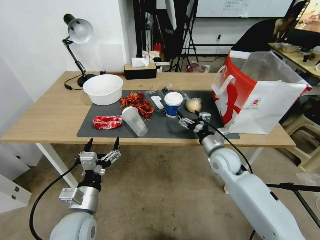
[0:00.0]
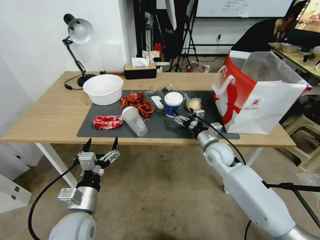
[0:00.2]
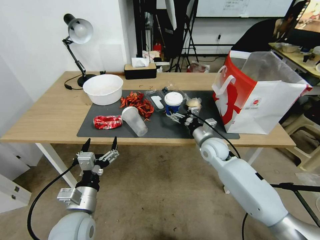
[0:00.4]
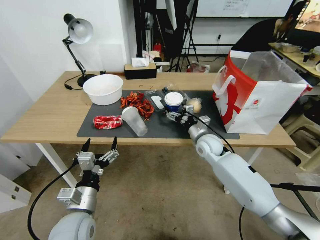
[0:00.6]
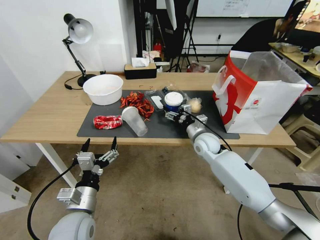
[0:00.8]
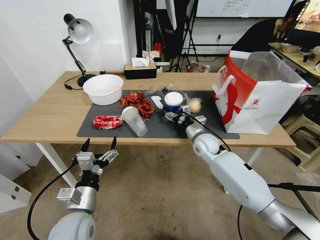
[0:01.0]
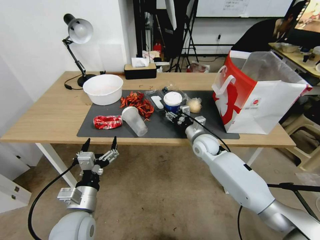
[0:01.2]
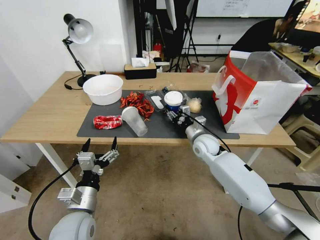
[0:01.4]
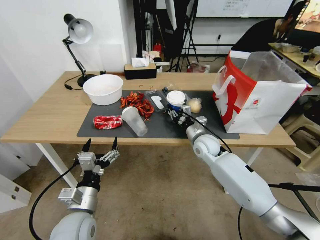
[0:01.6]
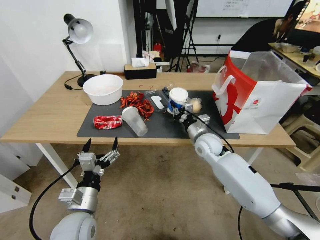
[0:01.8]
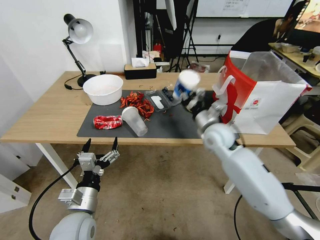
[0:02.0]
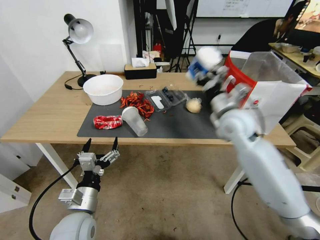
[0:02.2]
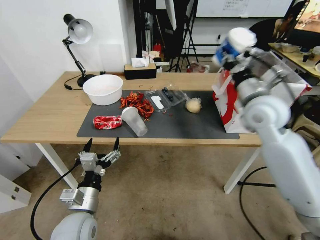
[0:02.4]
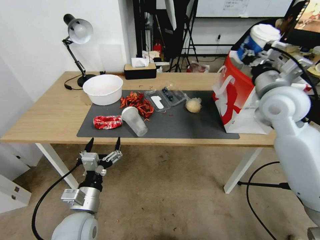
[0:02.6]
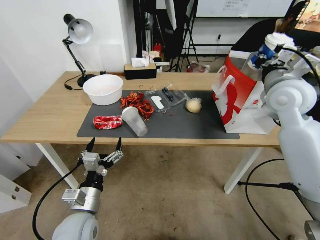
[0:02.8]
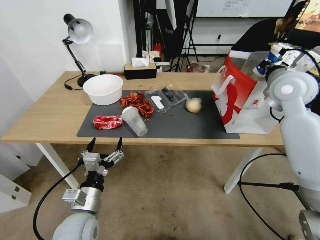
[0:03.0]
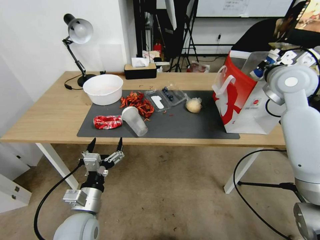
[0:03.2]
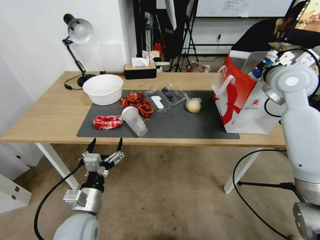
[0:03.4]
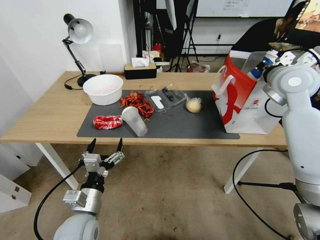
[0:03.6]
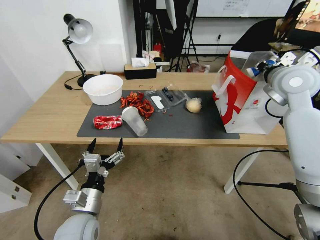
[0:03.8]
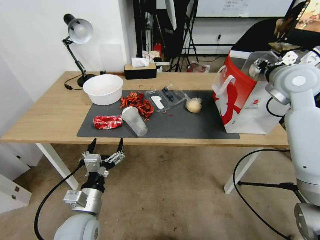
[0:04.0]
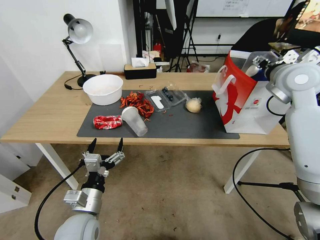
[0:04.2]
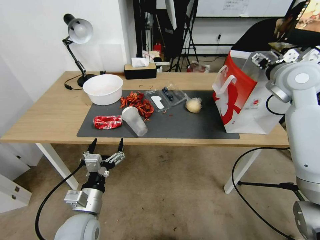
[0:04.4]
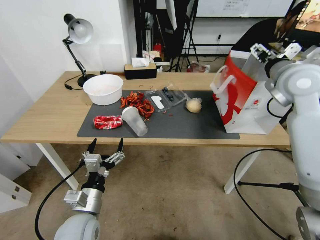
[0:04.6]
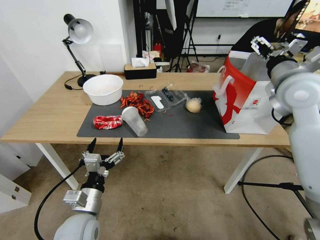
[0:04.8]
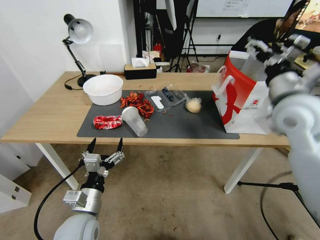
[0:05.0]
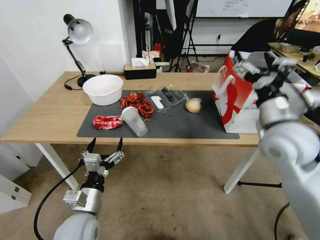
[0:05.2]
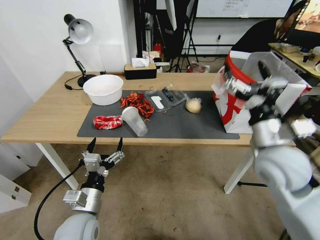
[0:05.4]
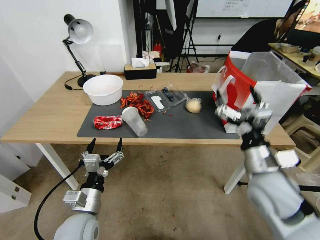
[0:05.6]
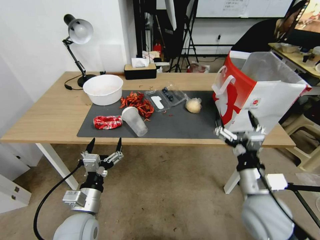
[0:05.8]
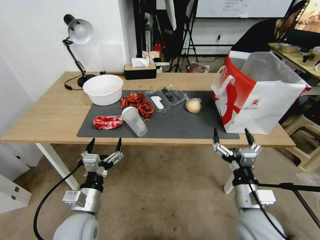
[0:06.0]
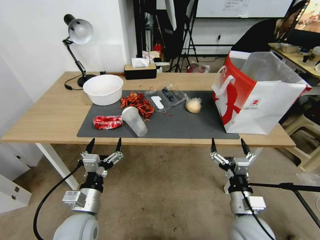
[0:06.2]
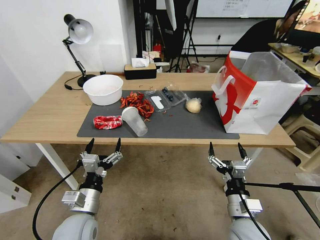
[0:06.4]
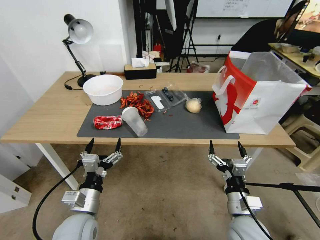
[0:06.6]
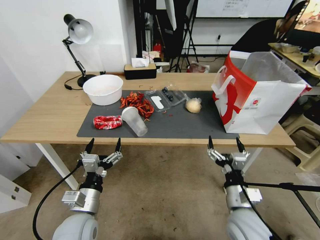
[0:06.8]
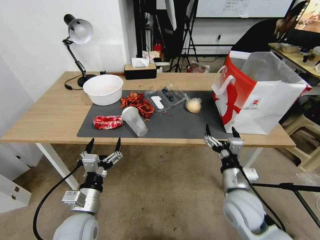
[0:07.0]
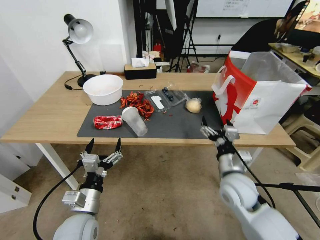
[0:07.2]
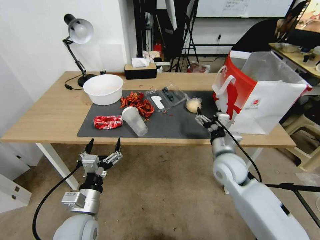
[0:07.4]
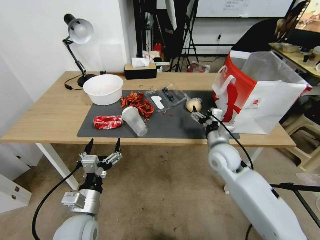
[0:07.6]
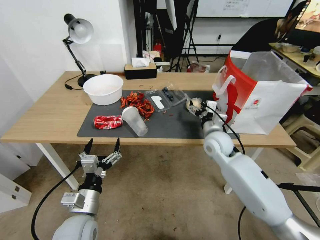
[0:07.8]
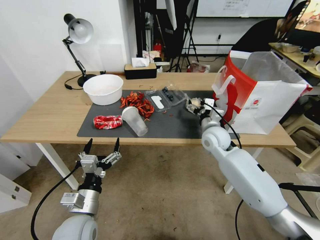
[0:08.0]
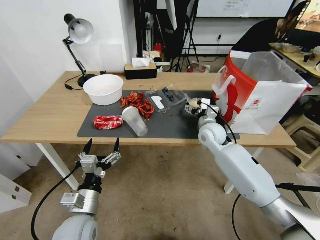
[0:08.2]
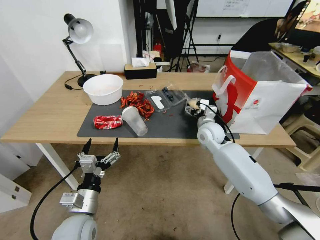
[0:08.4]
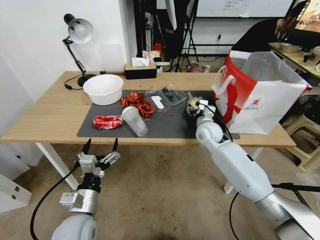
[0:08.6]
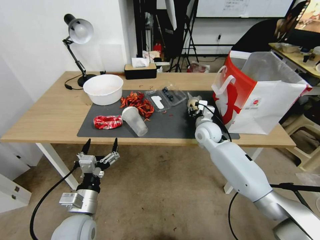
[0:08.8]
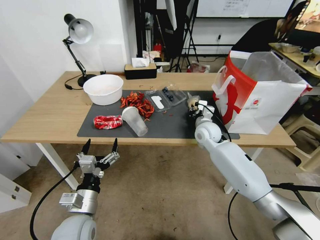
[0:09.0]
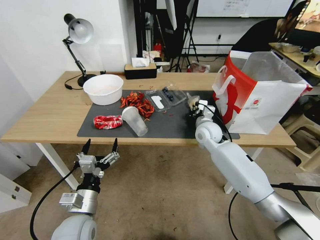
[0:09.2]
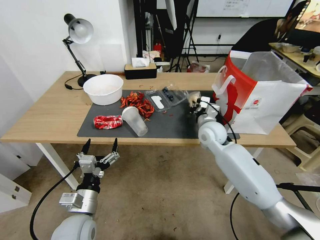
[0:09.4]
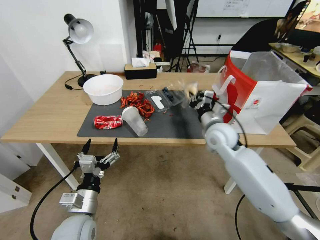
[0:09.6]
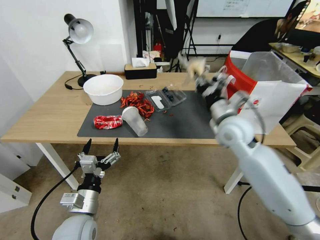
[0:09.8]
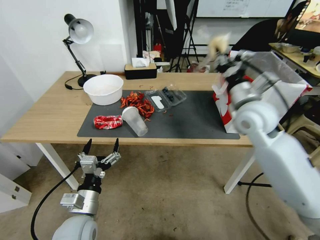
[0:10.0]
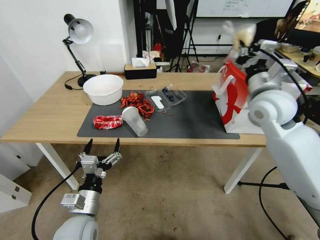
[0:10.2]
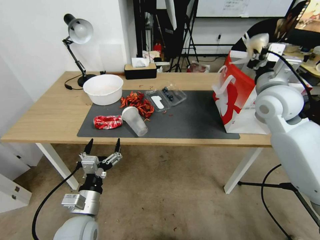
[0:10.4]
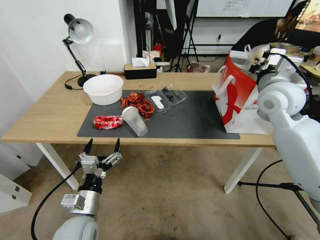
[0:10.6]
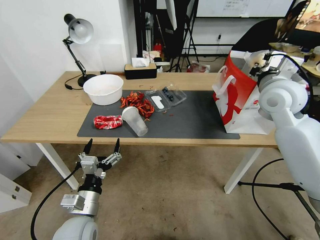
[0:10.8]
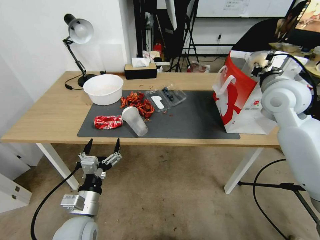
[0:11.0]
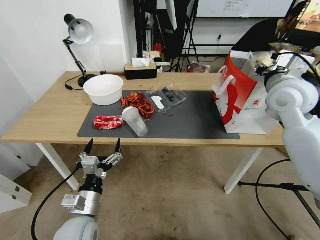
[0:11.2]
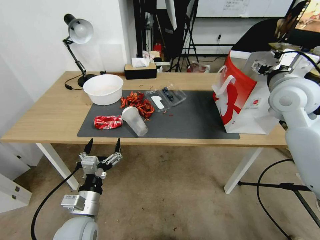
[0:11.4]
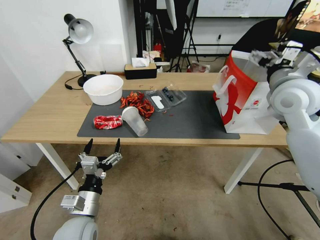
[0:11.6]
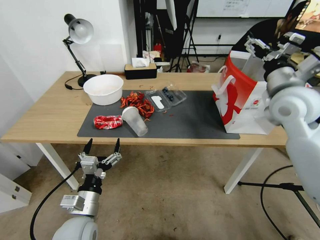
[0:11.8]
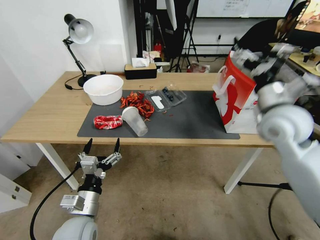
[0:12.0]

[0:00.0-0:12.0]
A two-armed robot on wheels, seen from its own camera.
0:00.0 to 0:01.6: The right gripper is displaced forward by some 5 cm, and closes its fingers.
0:01.6 to 0:03.0: The right gripper is displaced upward and to the right by about 30 cm.
0:03.0 to 0:04.4: The right gripper opens.
0:04.4 to 0:06.0: The right gripper moves backward, downward and to the left, some 40 cm.
0:06.0 to 0:07.6: The right gripper moves forward, about 20 cm.
0:07.6 to 0:09.0: The right gripper heads forward, covering roughly 10 cm, and closes up.
0:09.0 to 0:10.4: The right gripper goes roughly 25 cm upward and to the right.
0:10.4 to 0:12.0: The right gripper heads backward, covering approximately 5 cm, and opens.

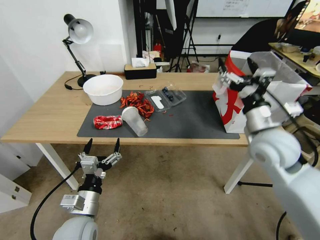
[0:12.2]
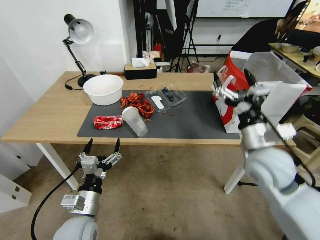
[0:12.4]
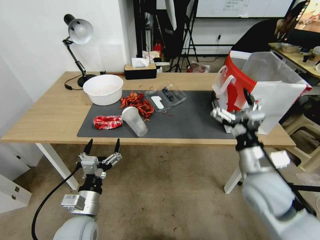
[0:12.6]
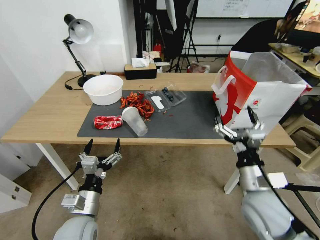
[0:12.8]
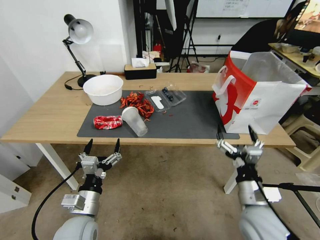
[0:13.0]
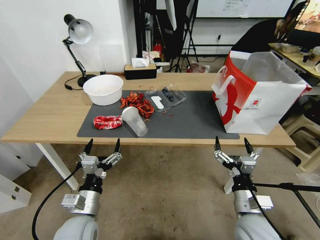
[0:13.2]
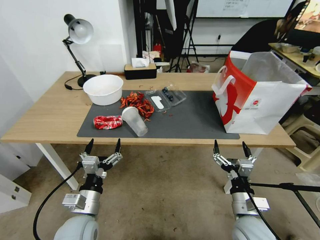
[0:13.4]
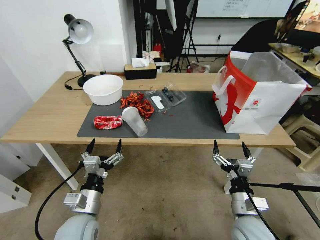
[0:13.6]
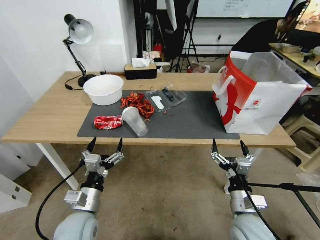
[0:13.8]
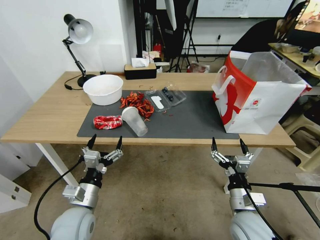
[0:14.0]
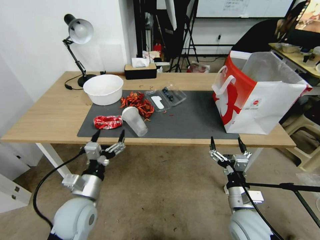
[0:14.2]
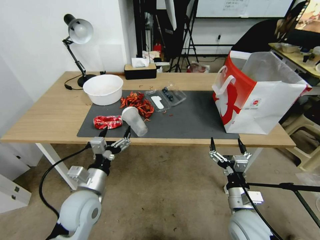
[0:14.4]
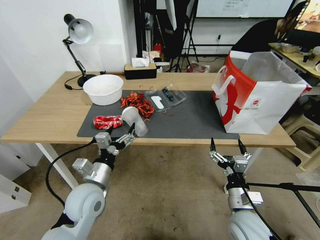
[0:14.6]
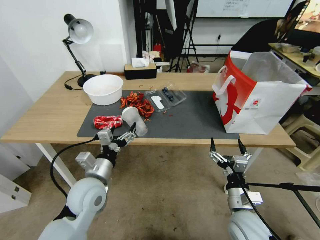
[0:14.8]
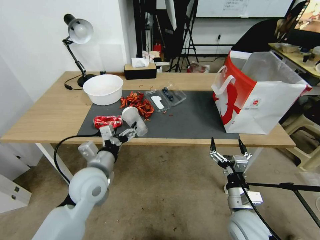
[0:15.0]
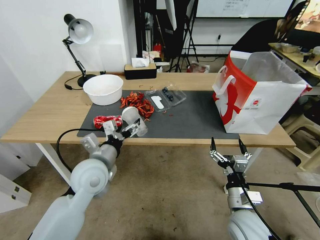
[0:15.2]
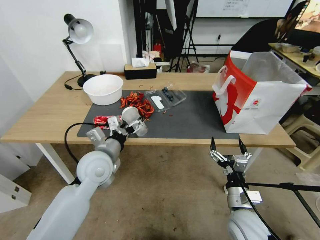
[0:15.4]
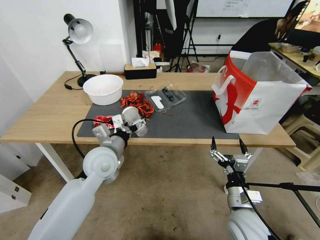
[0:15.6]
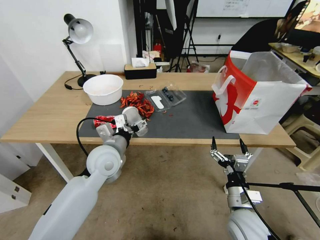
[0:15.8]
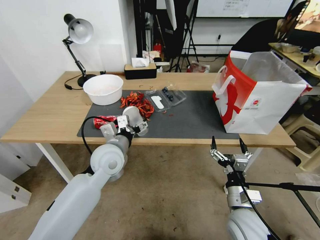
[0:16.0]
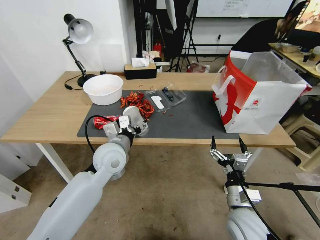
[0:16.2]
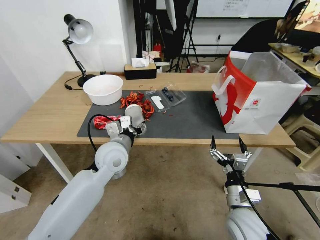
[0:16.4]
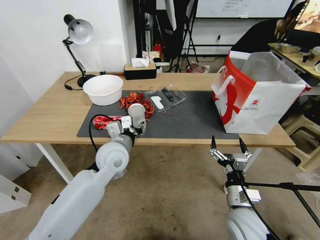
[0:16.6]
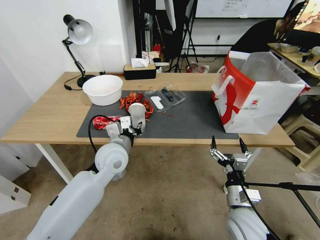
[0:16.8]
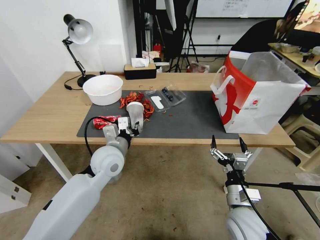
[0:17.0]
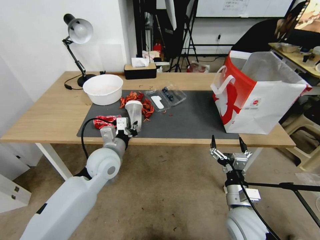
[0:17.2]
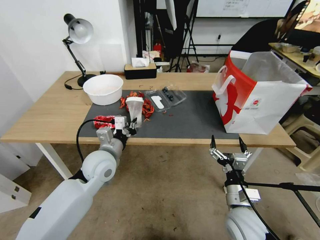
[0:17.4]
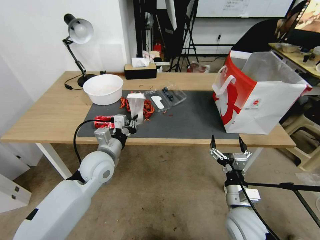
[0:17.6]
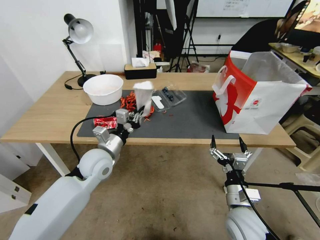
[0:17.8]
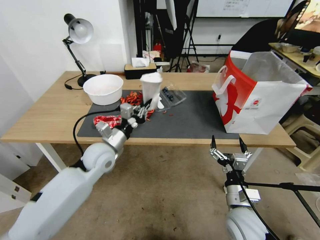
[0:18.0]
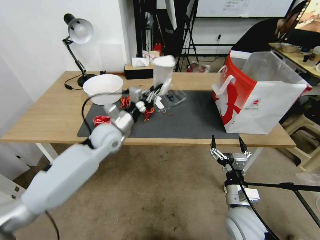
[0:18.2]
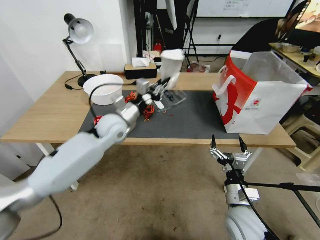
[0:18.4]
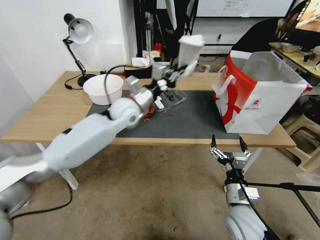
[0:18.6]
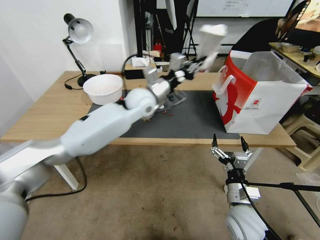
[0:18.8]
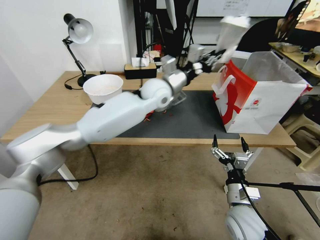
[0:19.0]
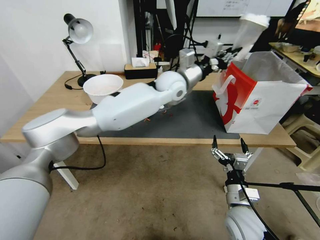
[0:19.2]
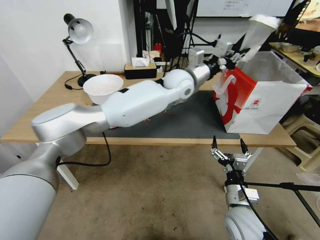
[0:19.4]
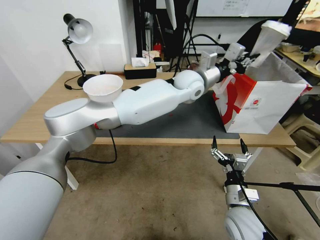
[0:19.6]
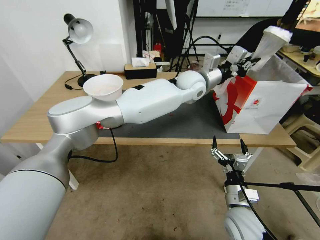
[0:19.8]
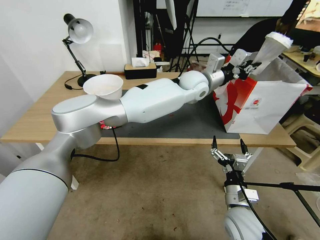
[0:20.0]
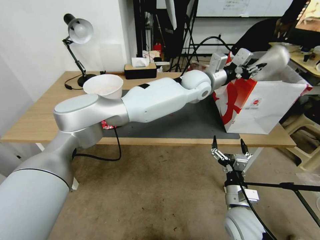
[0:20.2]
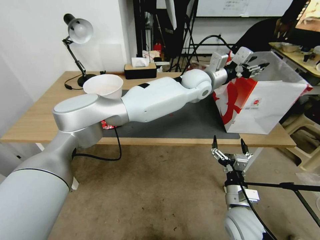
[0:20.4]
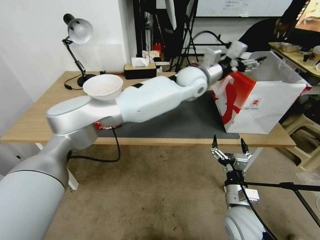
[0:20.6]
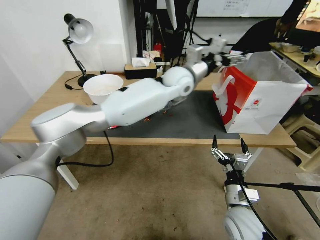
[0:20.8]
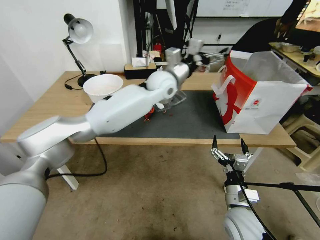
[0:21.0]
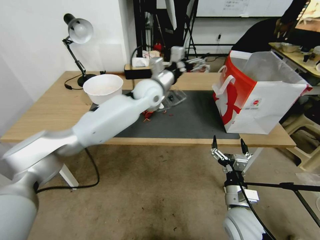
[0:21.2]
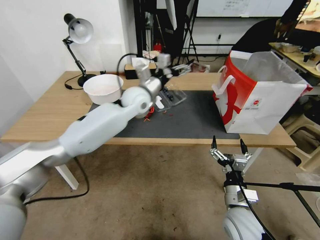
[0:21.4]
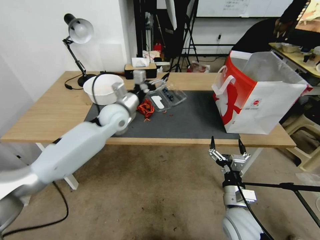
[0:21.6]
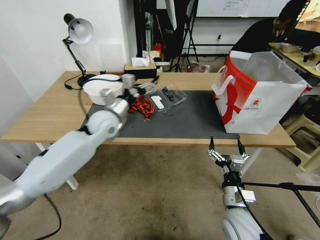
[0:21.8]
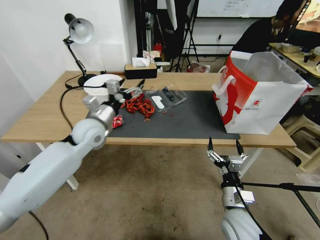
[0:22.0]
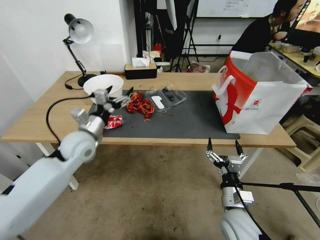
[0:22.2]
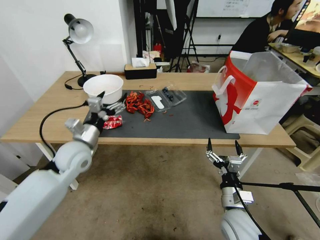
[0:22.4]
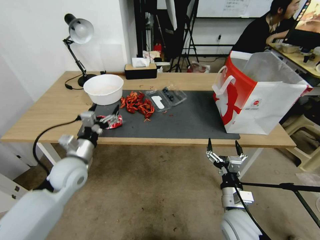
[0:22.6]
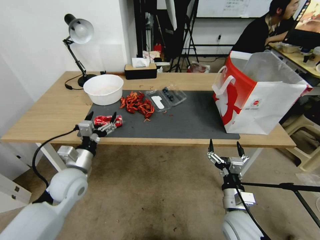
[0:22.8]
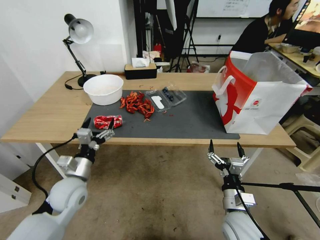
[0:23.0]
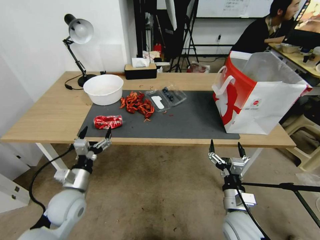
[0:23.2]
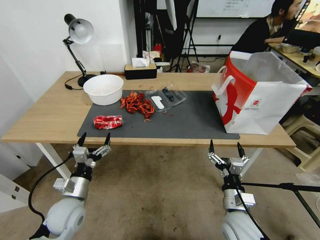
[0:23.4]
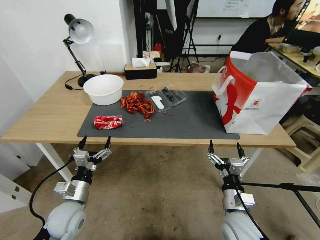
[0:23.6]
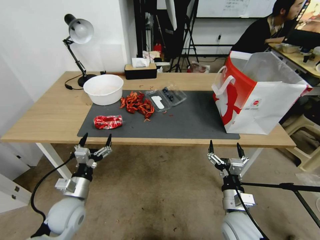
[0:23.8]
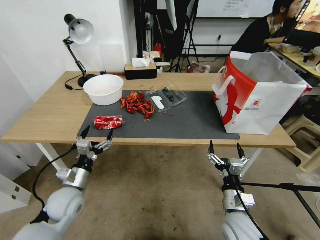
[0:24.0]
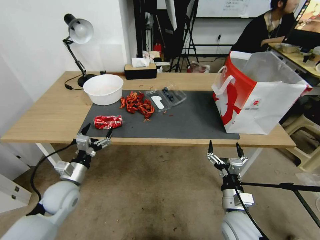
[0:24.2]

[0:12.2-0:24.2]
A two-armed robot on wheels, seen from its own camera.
0:12.2 to 0:13.8: The right gripper heads downward and backward, covering some 25 cm.
0:13.8 to 0:15.2: The left gripper moves forward and upward, approximately 15 cm.
0:15.2 to 0:16.6: The left gripper moves forward, some 5 cm, and closes up.
0:16.6 to 0:18.2: The left gripper moves forward, about 5 cm, and closes its fingers.
0:18.2 to 0:19.8: The left gripper goes roughly 35 cm to the right, upward and forward.
0:19.8 to 0:21.2: The left gripper goes about 15 cm to the left, and opens.
0:21.2 to 0:22.6: The left gripper travels to the left, backward and downward by about 35 cm.
0:22.6 to 0:24.2: The left gripper shifts about 5 cm downward.
